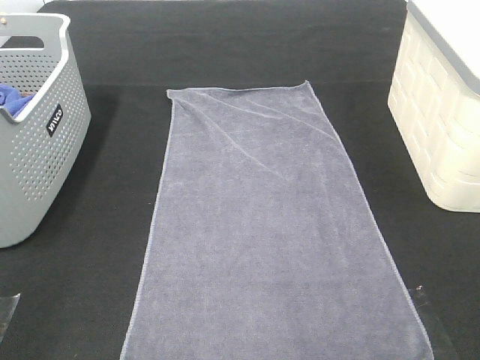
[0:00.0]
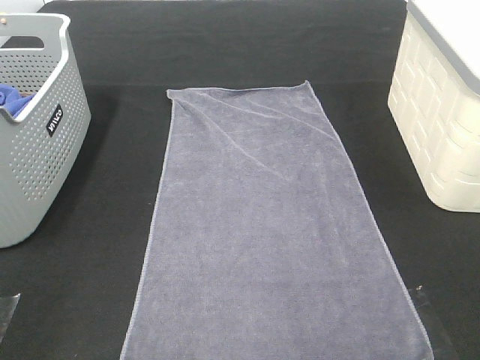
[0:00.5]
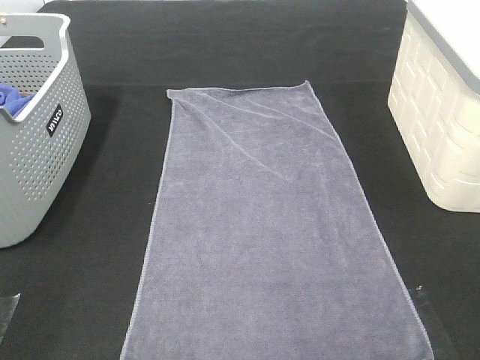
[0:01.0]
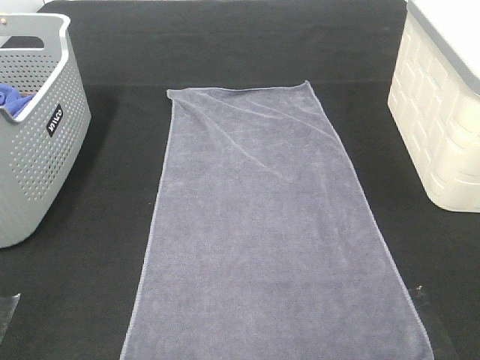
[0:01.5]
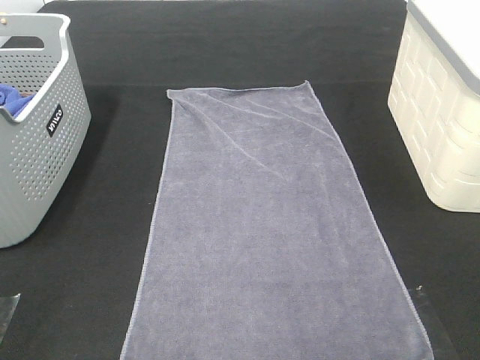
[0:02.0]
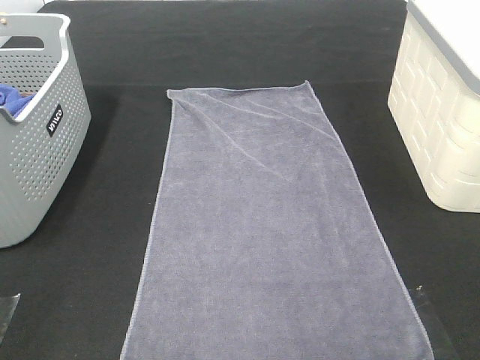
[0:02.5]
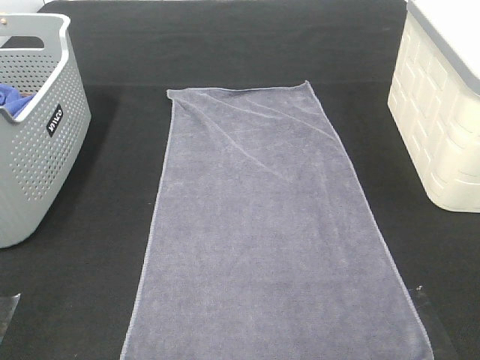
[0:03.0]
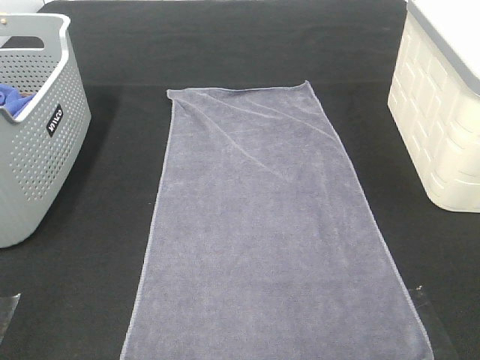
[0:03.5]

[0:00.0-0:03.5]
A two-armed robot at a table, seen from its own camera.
Task of the whole recording: Remove the towel and place it.
0:02.0 to 0:03.5: The two grippers keep their place.

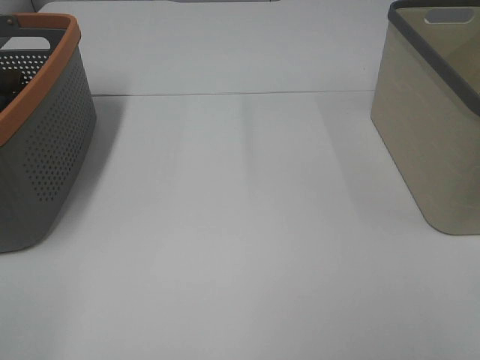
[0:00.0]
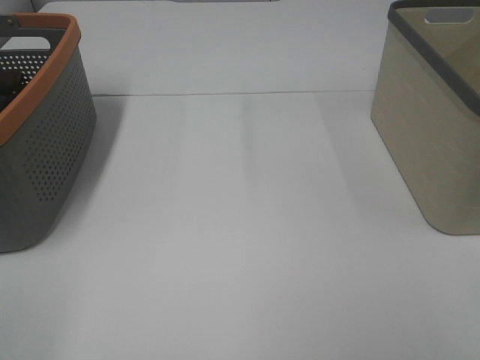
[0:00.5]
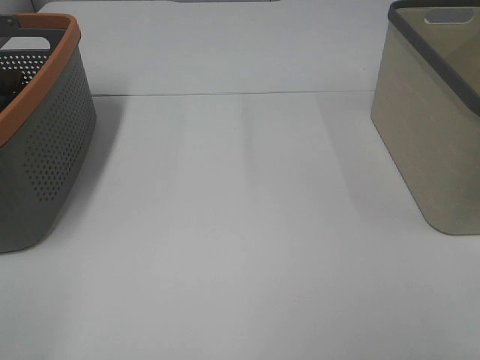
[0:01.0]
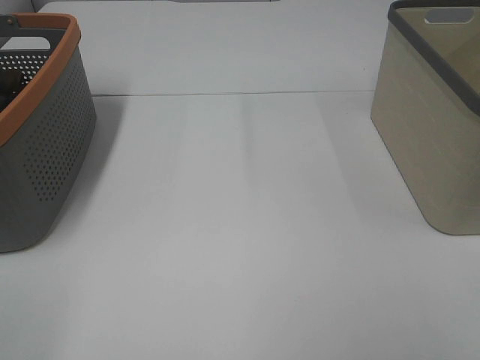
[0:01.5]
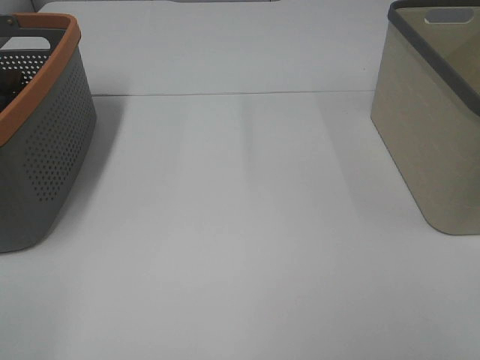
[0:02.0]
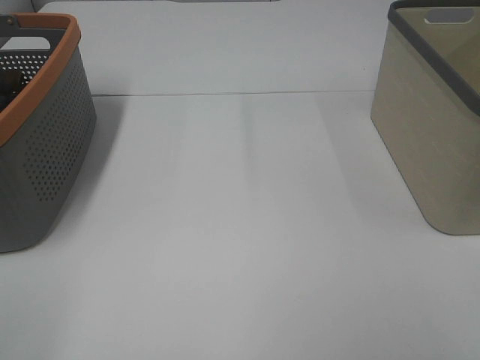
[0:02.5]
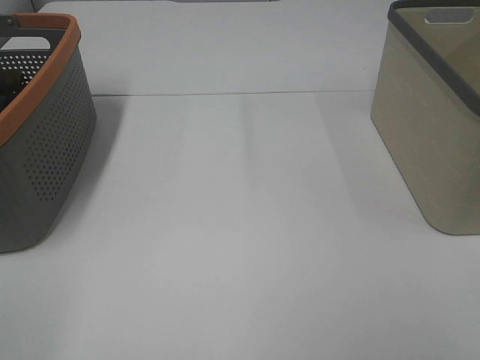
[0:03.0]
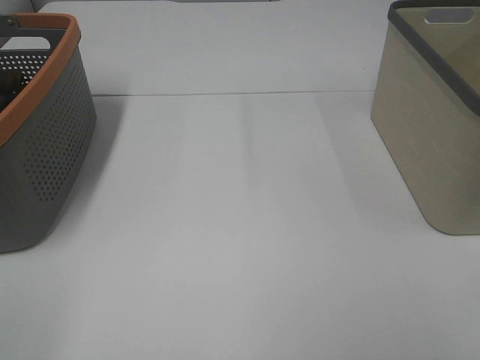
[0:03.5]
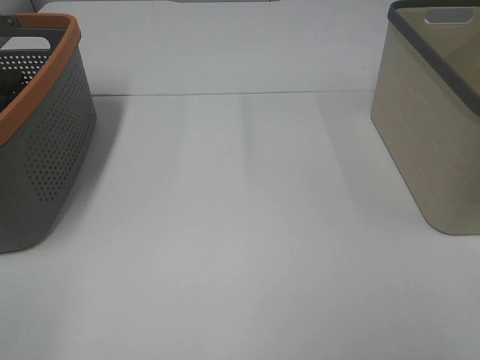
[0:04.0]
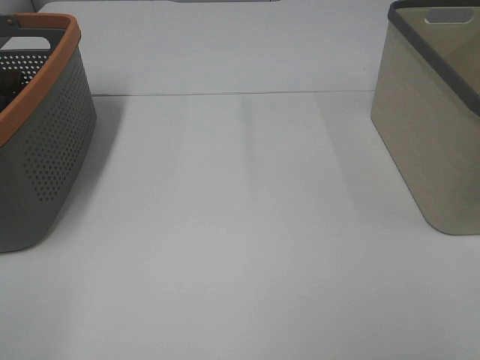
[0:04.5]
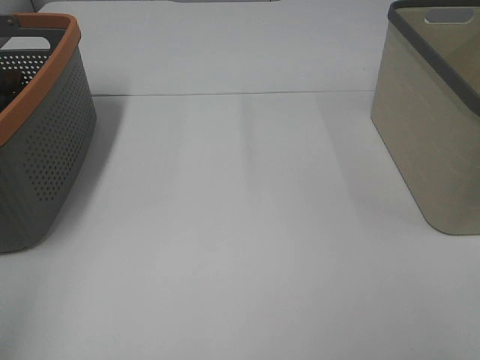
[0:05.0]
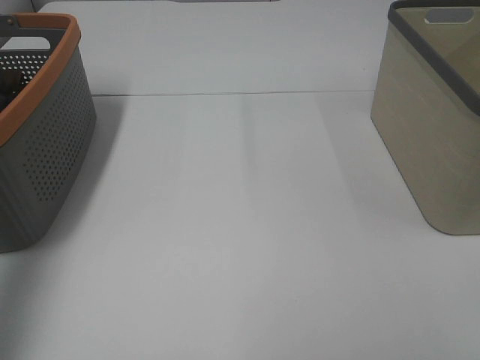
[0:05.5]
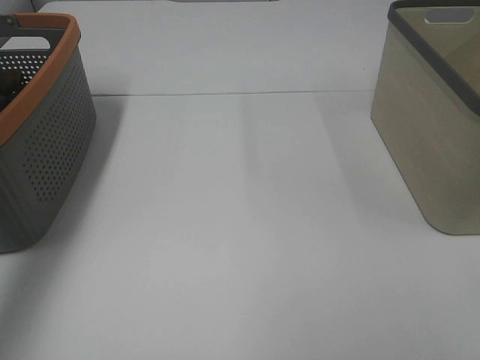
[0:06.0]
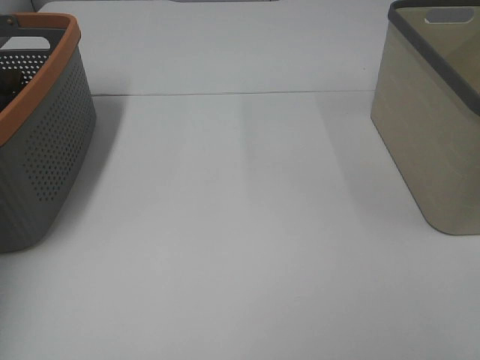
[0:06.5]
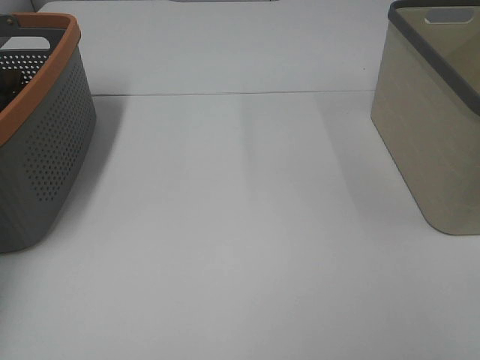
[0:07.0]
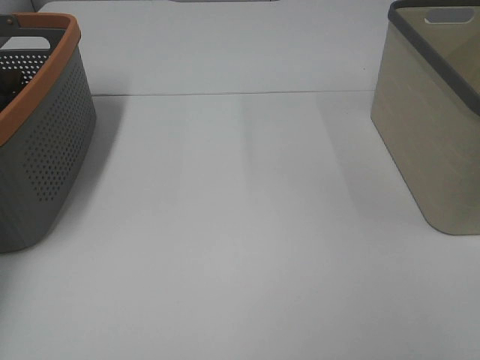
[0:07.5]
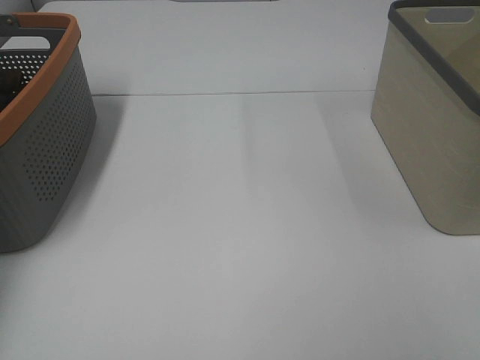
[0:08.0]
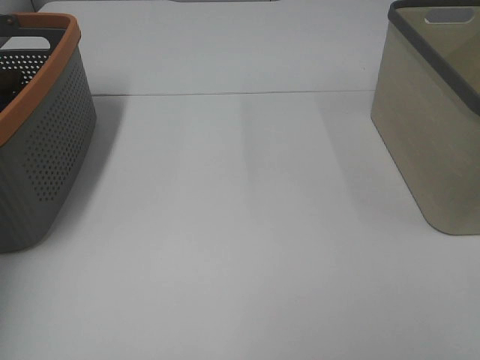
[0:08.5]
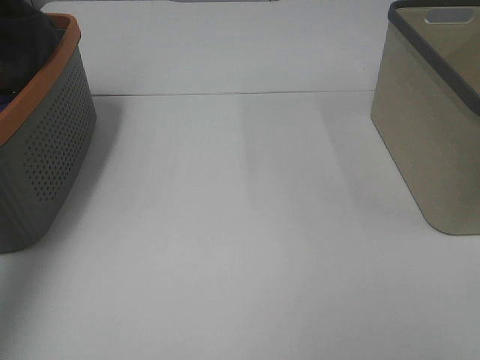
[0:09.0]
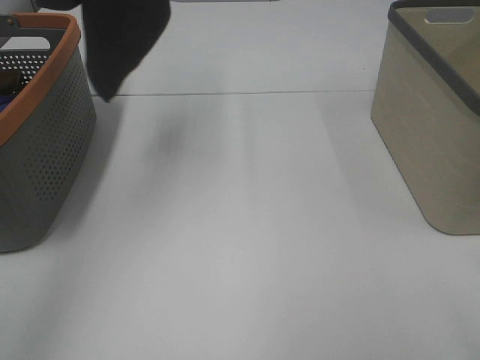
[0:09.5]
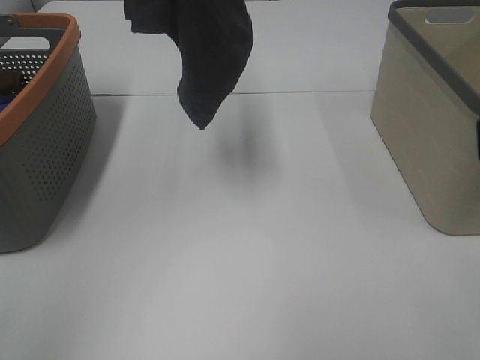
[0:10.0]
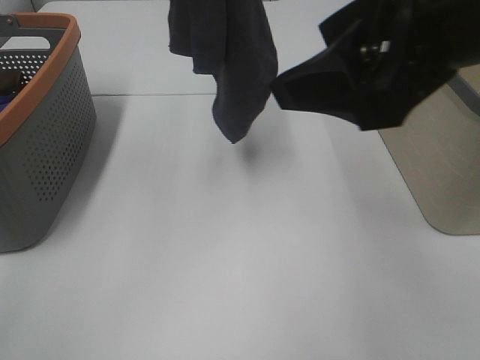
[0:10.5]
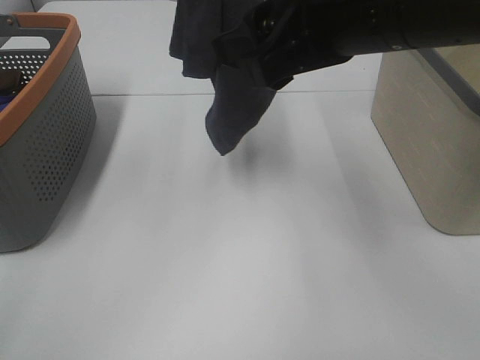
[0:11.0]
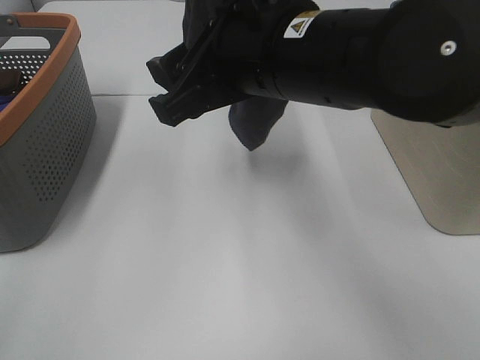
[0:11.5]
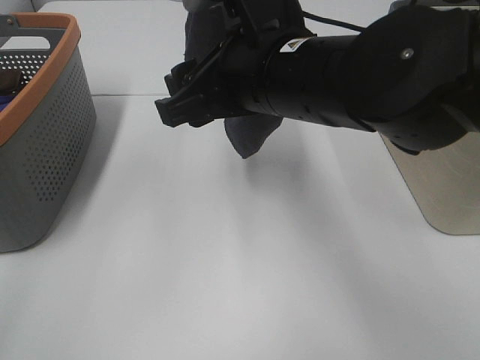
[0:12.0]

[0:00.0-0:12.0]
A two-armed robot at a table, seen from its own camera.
Task of the whole recording: Remove the towel and place it.
0:00.0 to 0:04.0: Both grippers stay put.
0:04.0 to 0:06.0: The left gripper travels forward by some 35 cm.
0:06.0 to 0:08.0: The left gripper shifts some 15 cm forward, to the left and downward, and closes.
0:08.0 to 0:10.0: The left gripper is displaced to the right, upward and backward by roughly 40 cm. The right gripper moves forward, upward and to the left, approximately 15 cm.
0:10.0 to 0:12.0: The right gripper is displaced to the left, forward and downward by some 25 cm, while the left gripper heads to the right, covering about 5 cm.

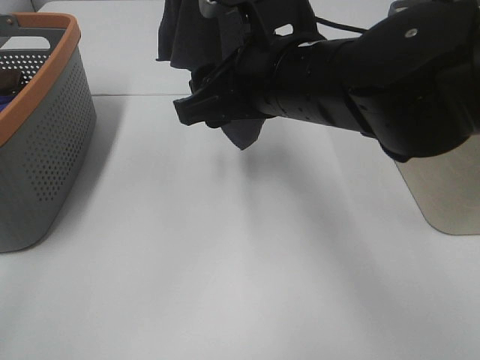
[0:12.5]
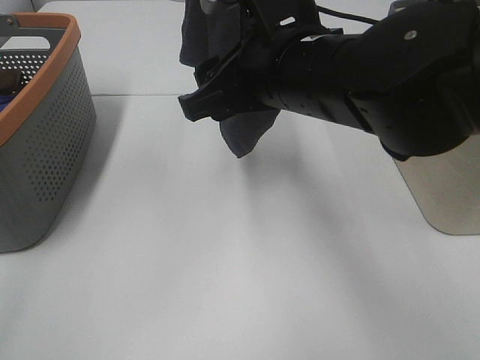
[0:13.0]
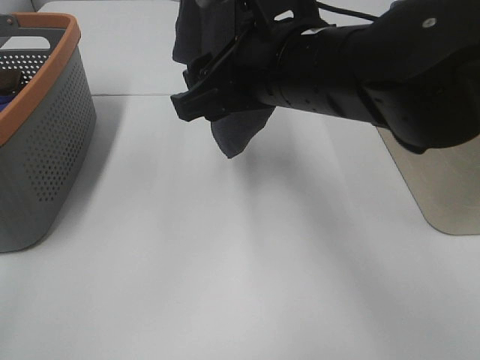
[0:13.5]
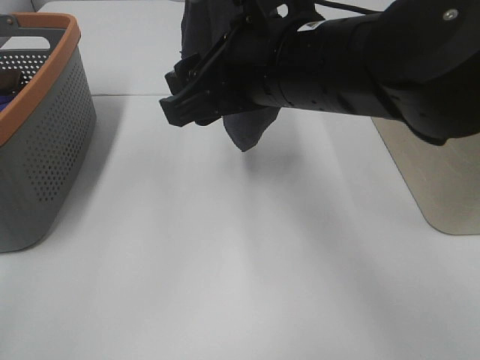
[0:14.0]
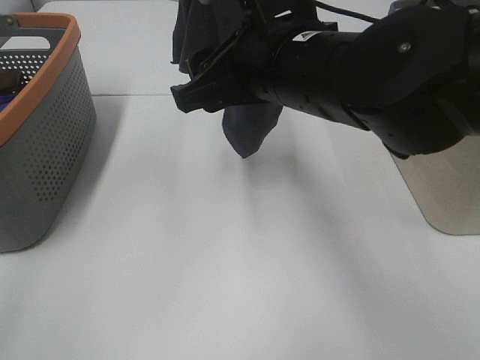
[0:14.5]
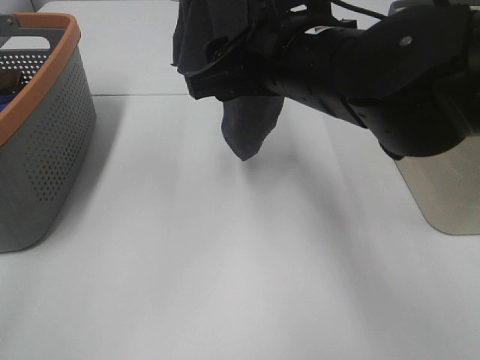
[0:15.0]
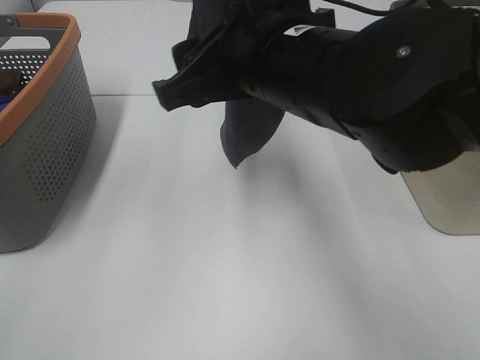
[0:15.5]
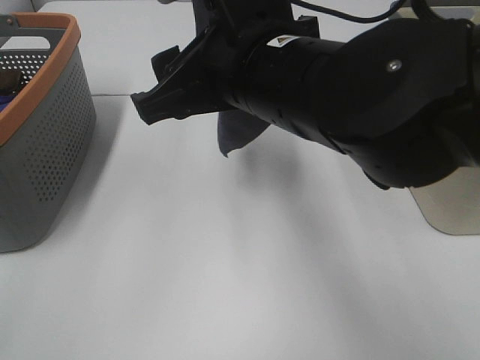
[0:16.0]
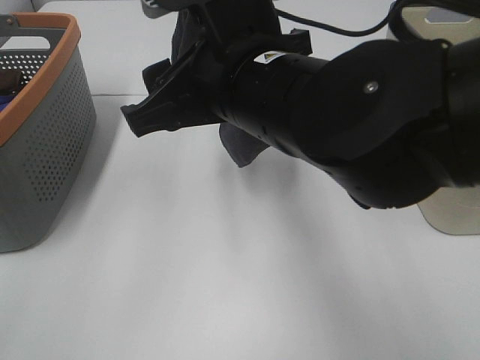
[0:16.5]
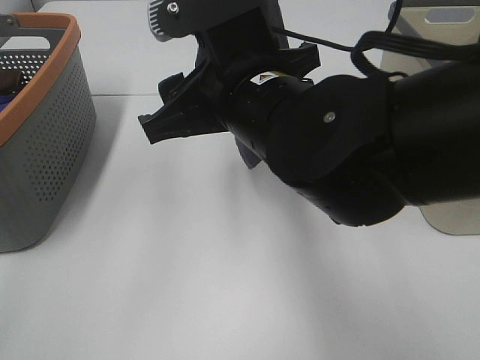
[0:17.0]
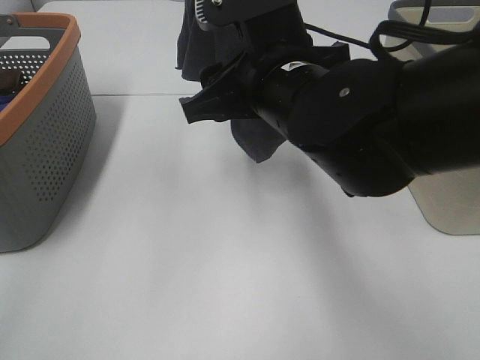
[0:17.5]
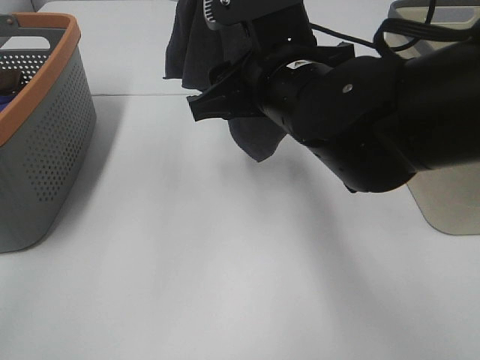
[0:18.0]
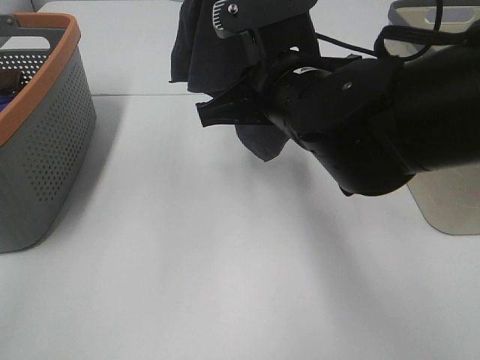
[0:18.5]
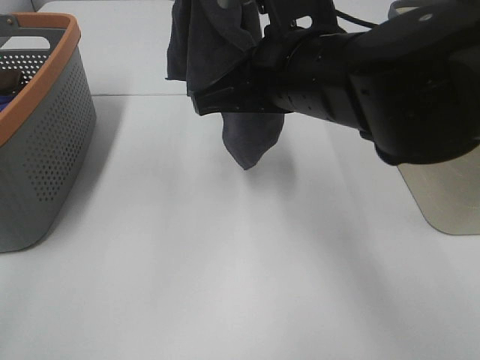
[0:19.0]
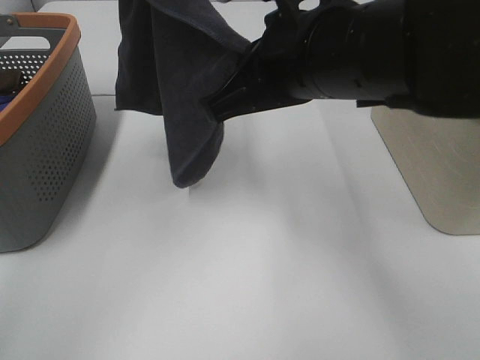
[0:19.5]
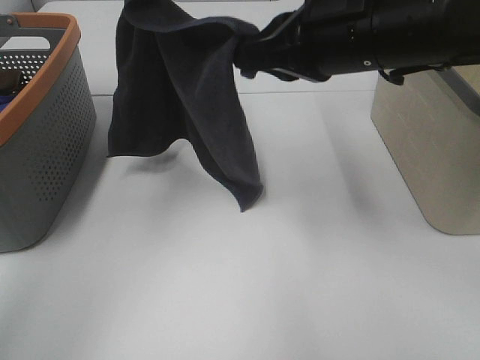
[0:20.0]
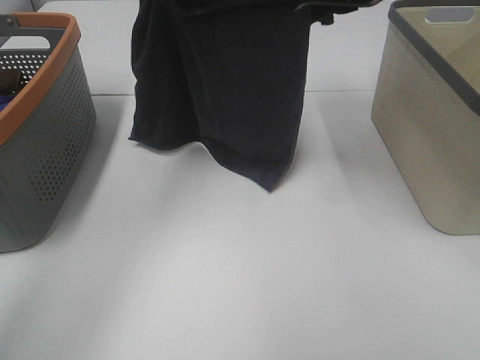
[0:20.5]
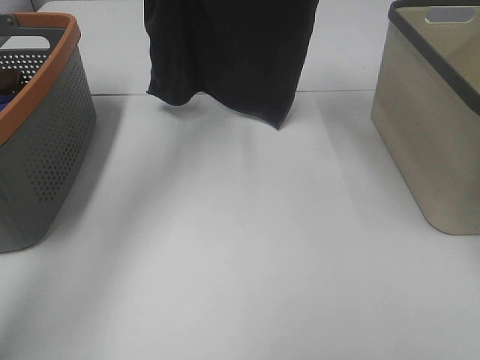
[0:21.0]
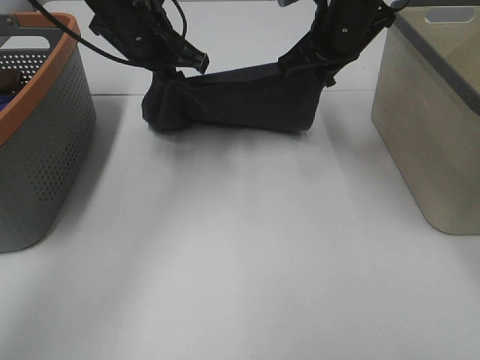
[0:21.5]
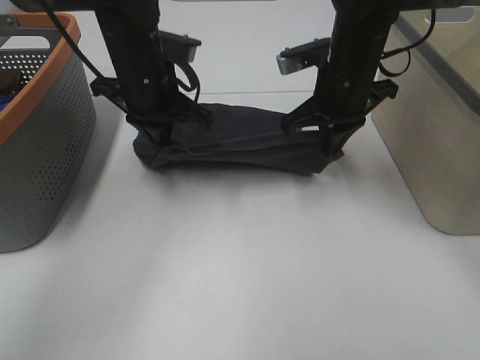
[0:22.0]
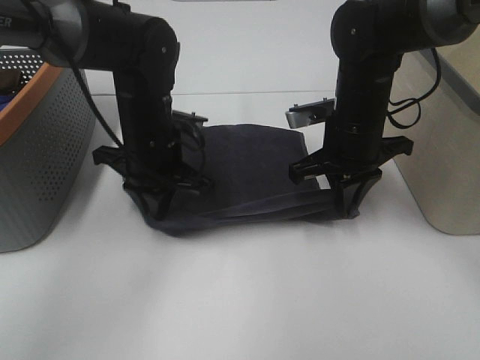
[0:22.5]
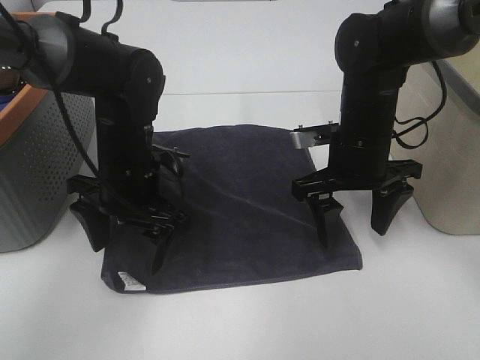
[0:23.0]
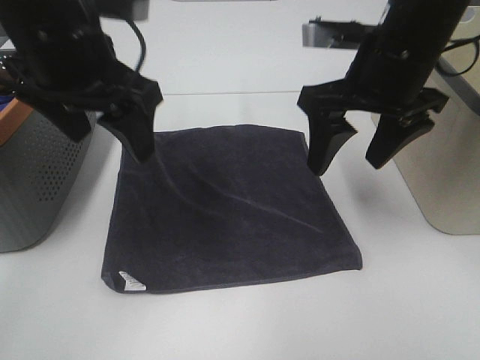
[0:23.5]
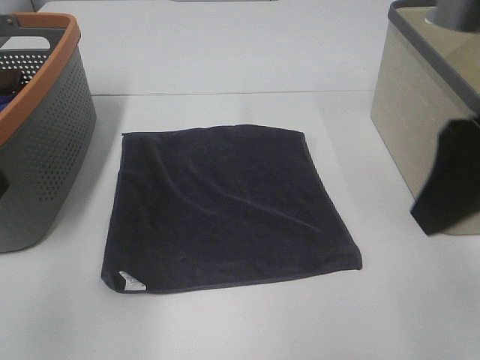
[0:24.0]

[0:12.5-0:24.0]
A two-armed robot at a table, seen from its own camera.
Task of the whole recording: Remove the towel and place it.
Step, 0:12.5 to 0:16.5: Right hand: grab a corner of the grey towel and straighten it.
Step, 0:17.0 to 0:18.5: Right hand: spread the grey towel flat on the table.
0:12.5 to 0:14.5: The grippers move only a little.
0:16.5 to 0:18.5: The right gripper ends up some 5 cm from where it was, and closes up.
0:18.5 to 0:20.0: The right gripper heads to the right, covering about 5 cm. Meanwhile the left gripper is displaced downward and forward by roughly 10 cm.
0:20.0 to 0:22.0: The left gripper heads downward, covering roughly 20 cm. Meanwhile the right gripper goes some 15 cm forward and downward.
0:22.0 to 0:24.0: The right gripper is displaced backward and upward by some 25 cm, and opens. The left gripper travels backward, upward and to the left by about 30 cm, and opens its fingers.
